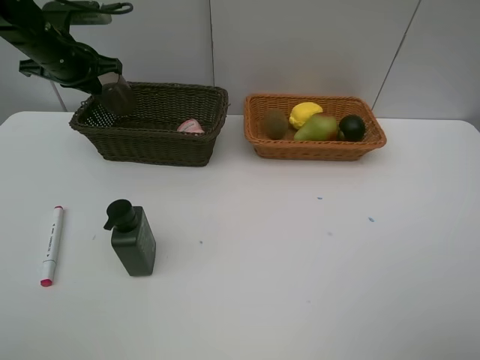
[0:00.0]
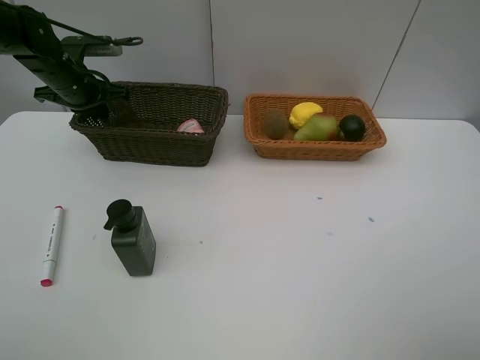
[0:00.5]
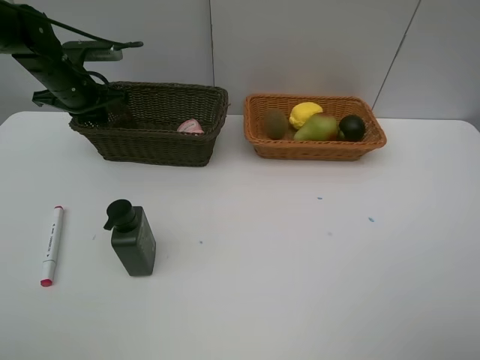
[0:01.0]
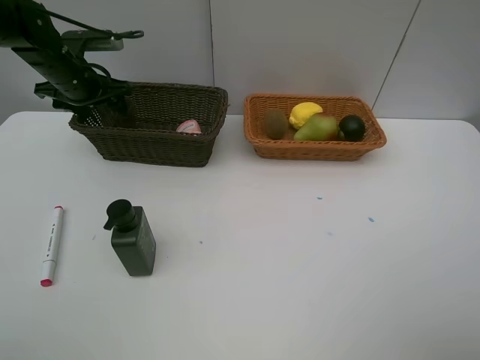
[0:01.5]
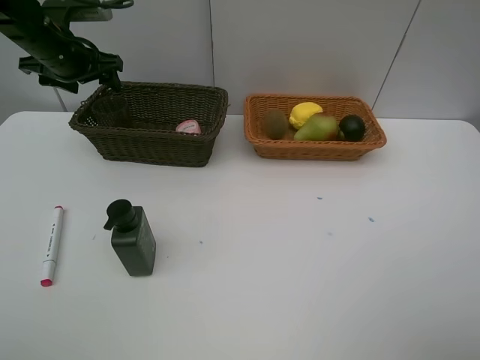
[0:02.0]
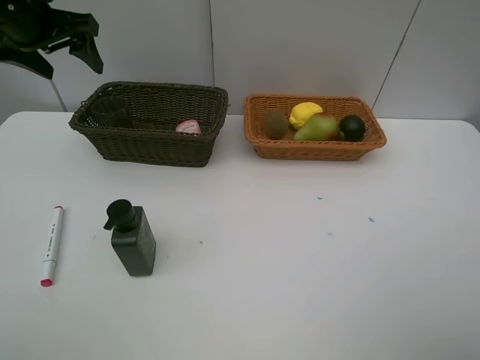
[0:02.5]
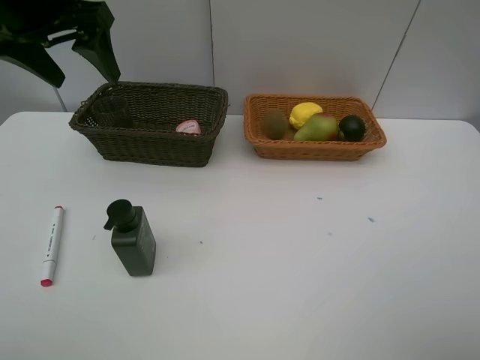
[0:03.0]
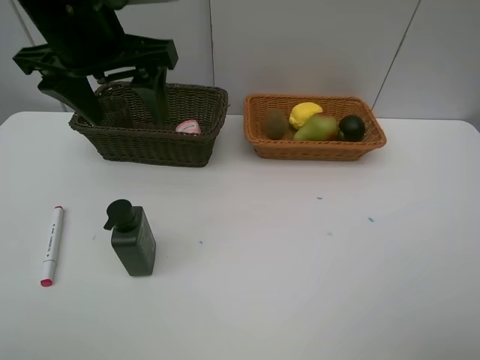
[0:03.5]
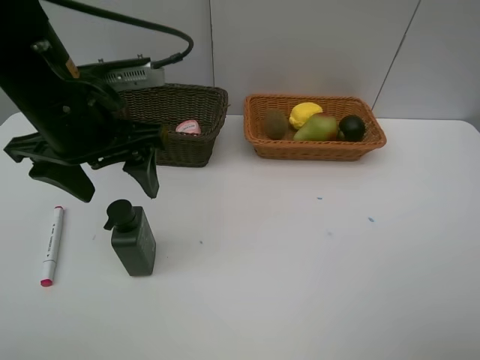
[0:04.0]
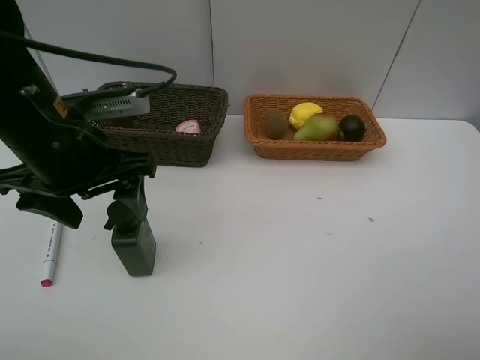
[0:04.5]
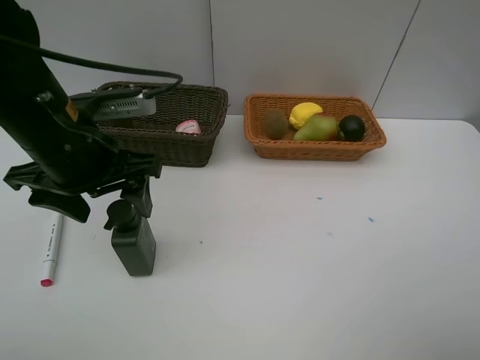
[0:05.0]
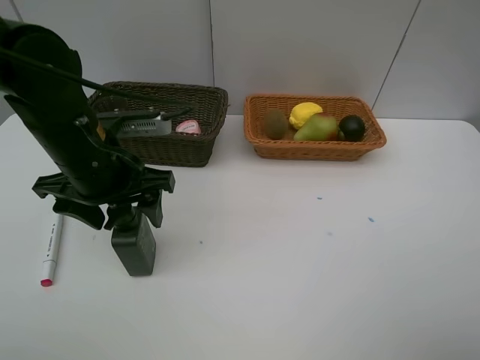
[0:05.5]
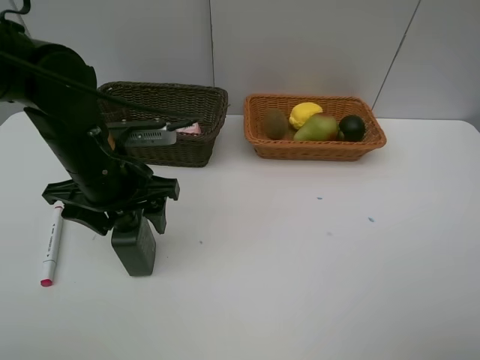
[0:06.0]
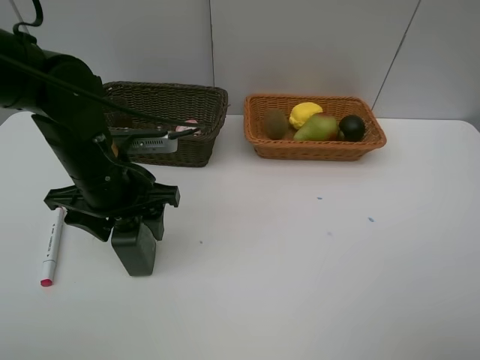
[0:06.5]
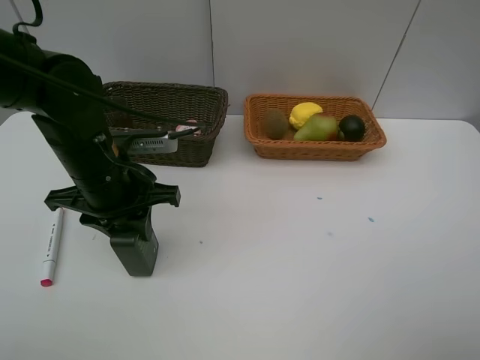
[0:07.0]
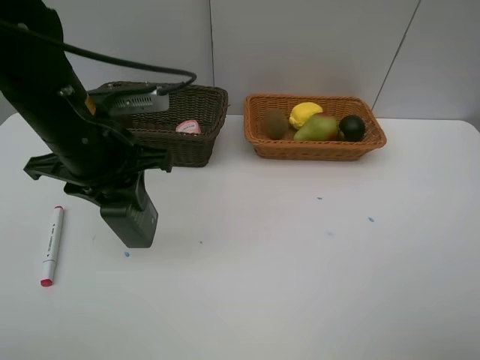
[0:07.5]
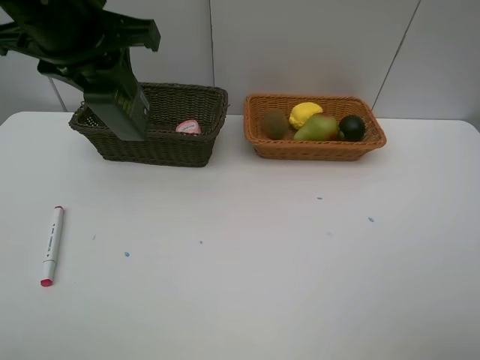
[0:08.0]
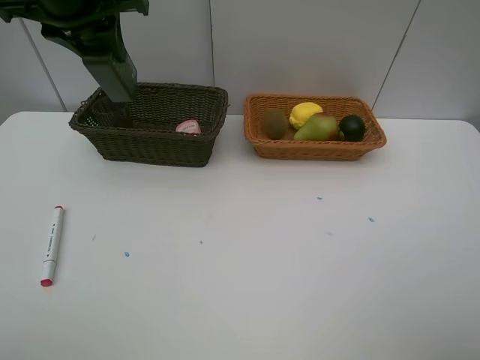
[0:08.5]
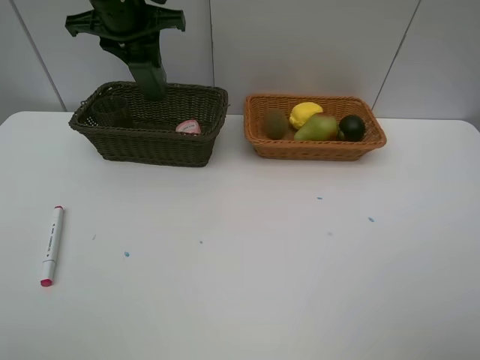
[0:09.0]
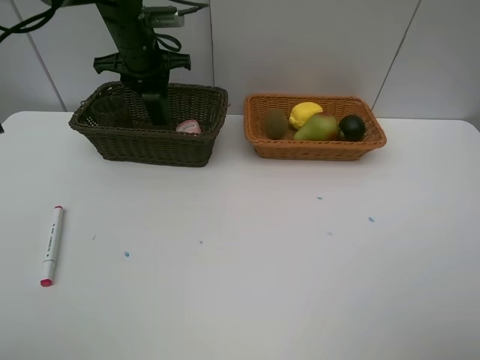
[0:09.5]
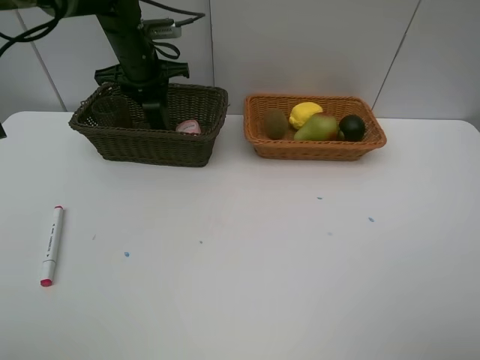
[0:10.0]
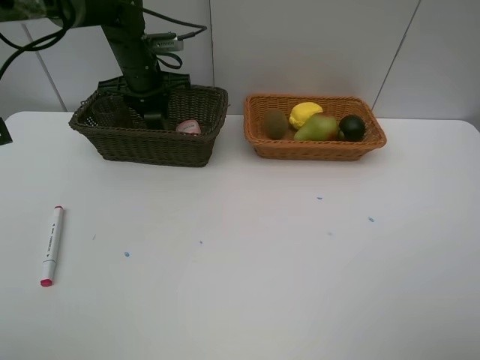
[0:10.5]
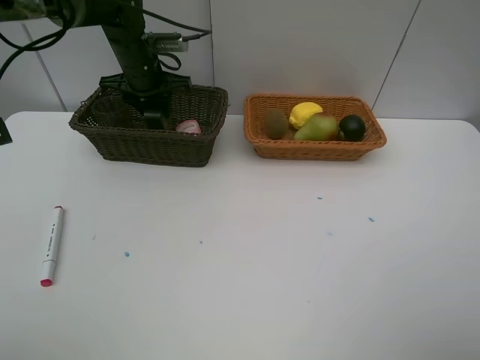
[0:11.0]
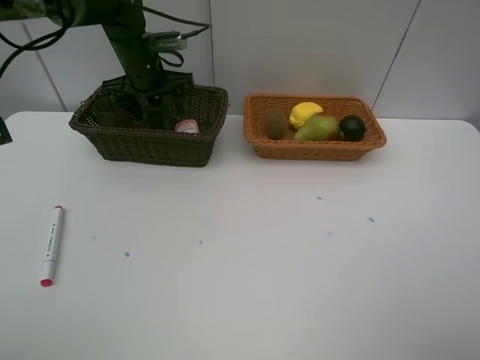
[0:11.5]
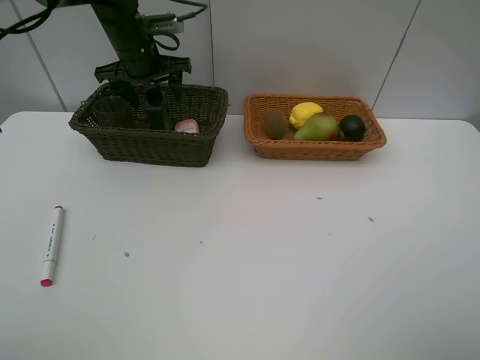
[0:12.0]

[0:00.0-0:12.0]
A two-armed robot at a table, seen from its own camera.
Task of the whole recording: Place multiple objects separately in different baskets.
Step, 0:02.0 to 0:07.0: Pick up the hard facial cleanser with left gripper.
0:00.0 to 0:02.0: The left gripper opens its fingers.
0:02.0 to 0:04.0: The left gripper heads backward and to the right, covering roughly 25 cm.
0:04.0 to 0:06.0: The left gripper travels downward by approximately 10 cm.
0:06.0 to 0:08.0: The left gripper goes about 15 cm upward, and closes its fingers.
0:08.0 to 0:10.0: The left gripper moves forward and downward, roughly 25 cm.
0:10.0 to 0:12.0: The left gripper opens up.

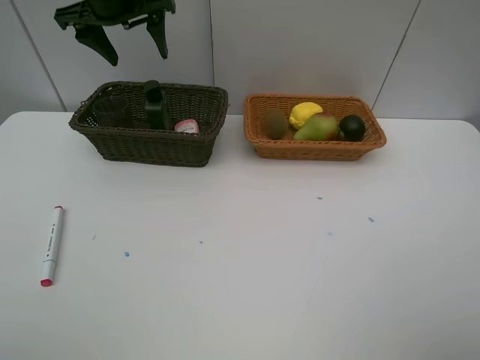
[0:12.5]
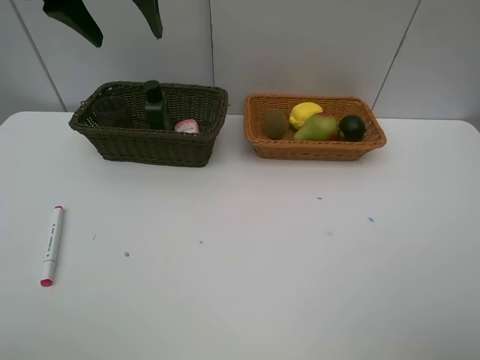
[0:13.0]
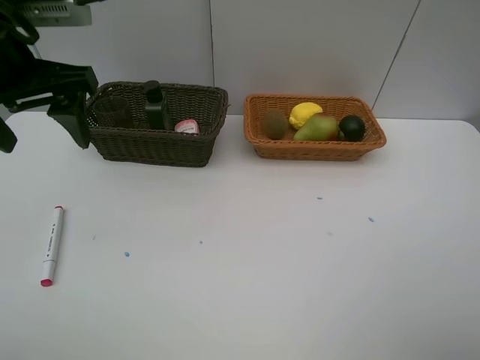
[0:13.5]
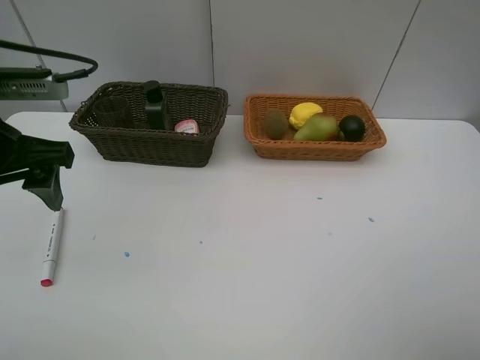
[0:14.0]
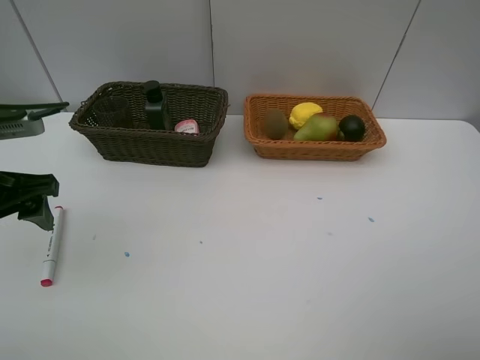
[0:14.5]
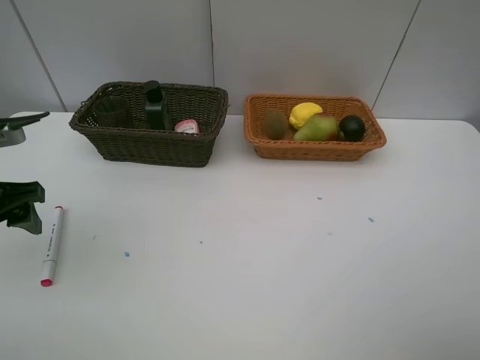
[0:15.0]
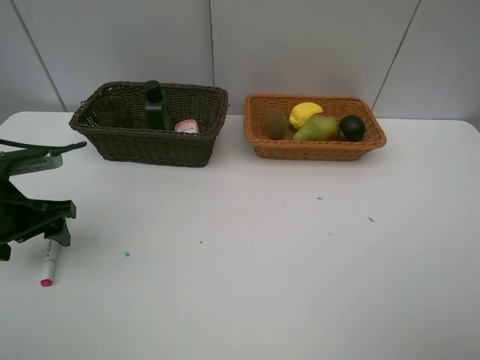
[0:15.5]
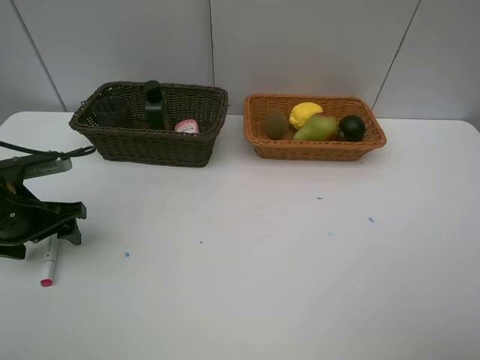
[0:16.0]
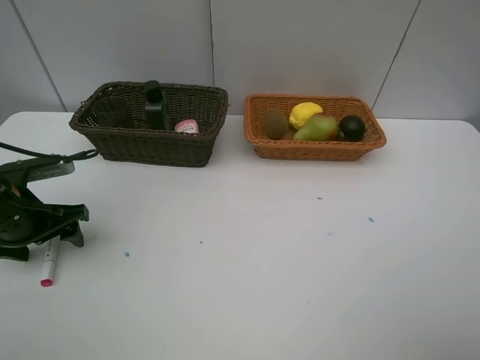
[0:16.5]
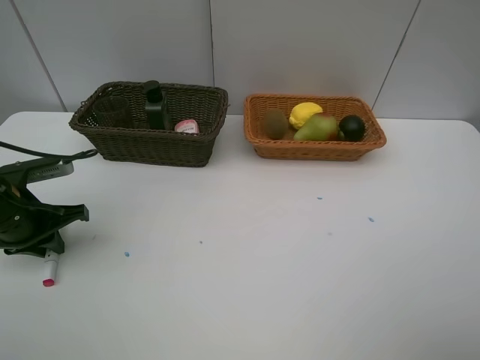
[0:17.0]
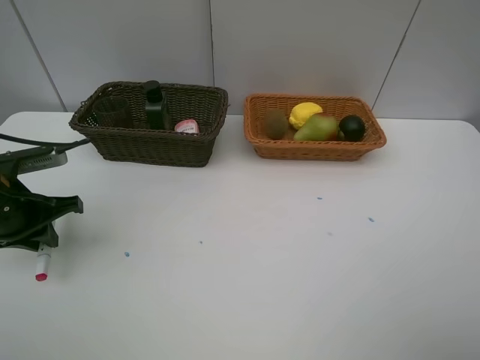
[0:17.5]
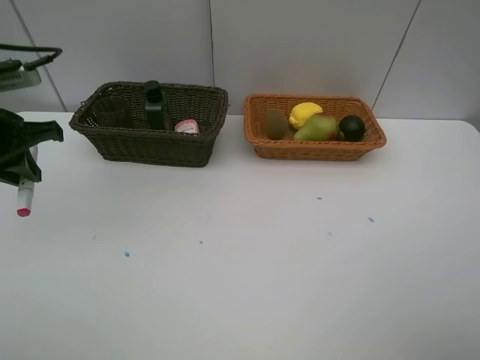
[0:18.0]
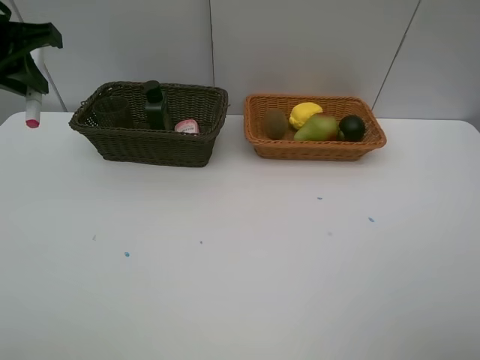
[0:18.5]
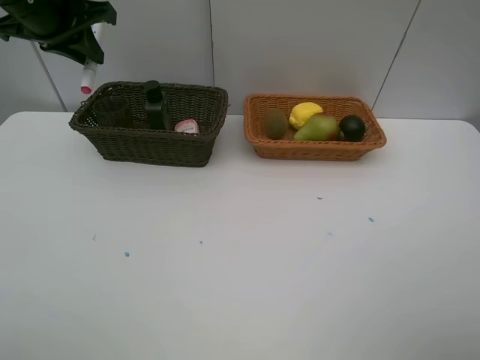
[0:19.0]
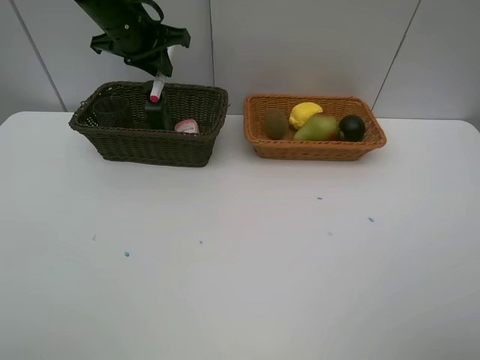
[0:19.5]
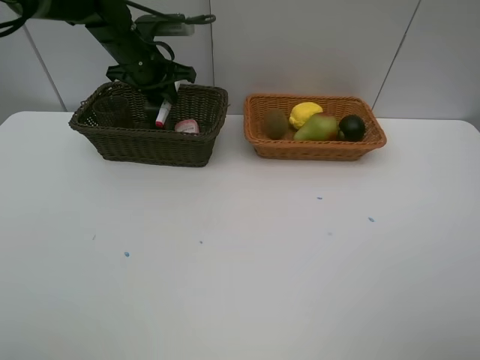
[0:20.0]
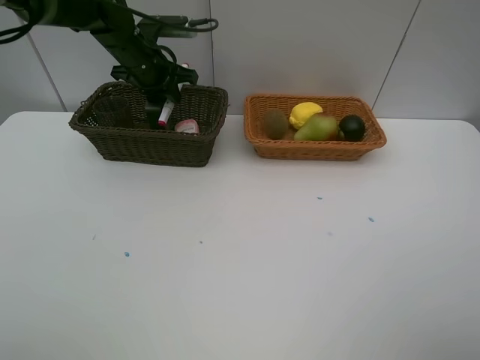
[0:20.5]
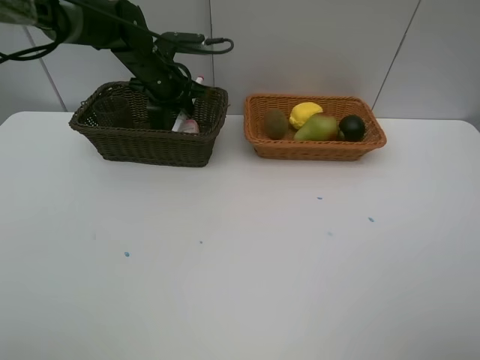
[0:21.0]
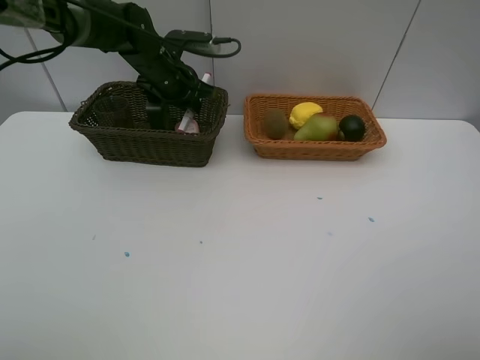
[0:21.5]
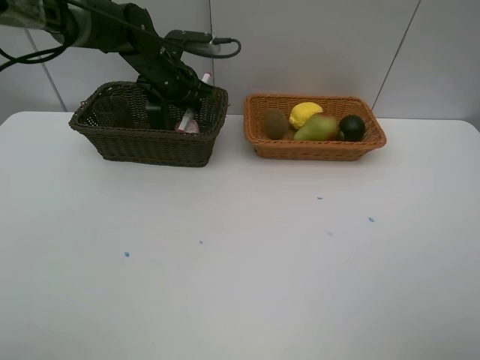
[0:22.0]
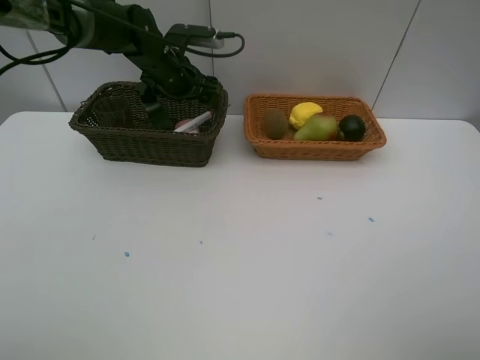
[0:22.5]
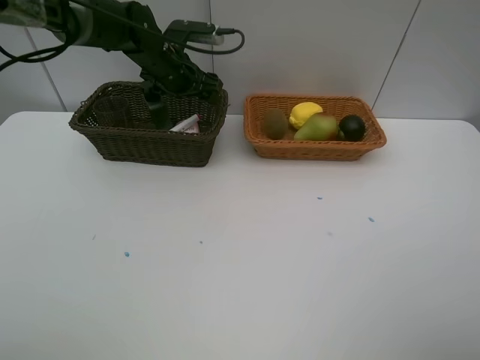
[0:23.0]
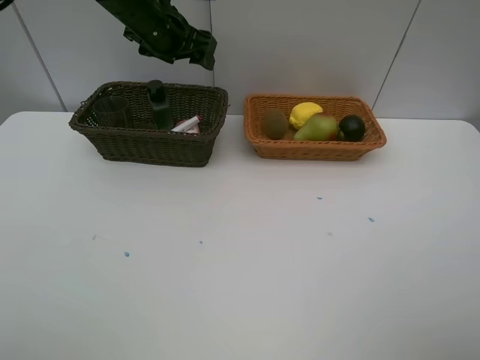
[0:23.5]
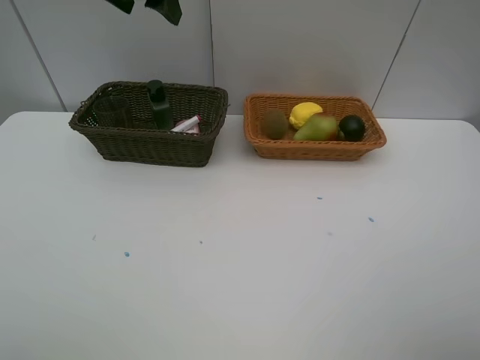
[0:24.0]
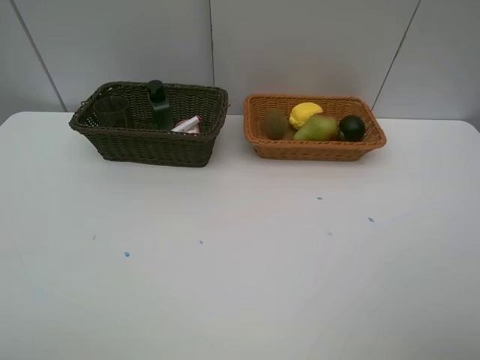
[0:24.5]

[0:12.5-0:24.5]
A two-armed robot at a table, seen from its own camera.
Task of the whole recording: Place multiple objects separately in different baskets.
Step, 0:12.5 to 0:17.0: Pick up the red marker with left gripper.
Step, 0:17.5 to 0:22.5: Place the red marker in the dark basket with left gripper.
0:12.5 to 0:14.5: The left gripper shifts roughly 30 cm backward, downward and to the left.
0:14.5 to 0:16.5: The left gripper goes roughly 10 cm downward.
0:16.5 to 0:18.5: The left gripper goes some 20 cm upward and forward, and closes up.
0:18.5 to 0:20.5: The left gripper shifts about 20 cm forward, to the right and downward.
0:20.5 to 0:22.5: The left gripper opens.
0:22.5 to 0:24.5: The left gripper travels upward, backward and to the left by about 35 cm.

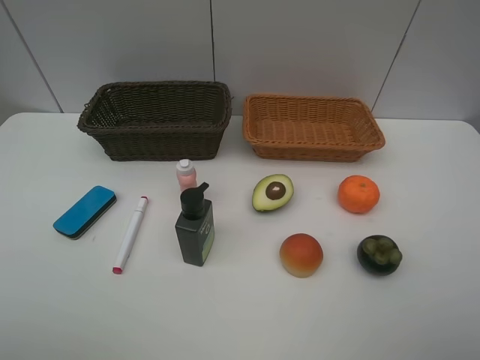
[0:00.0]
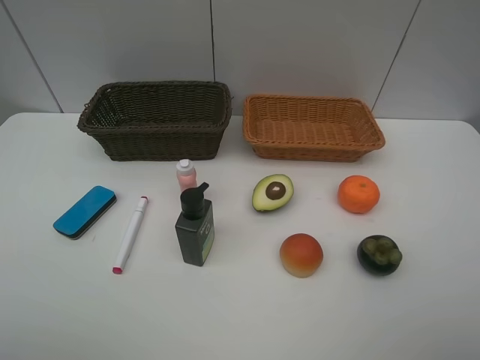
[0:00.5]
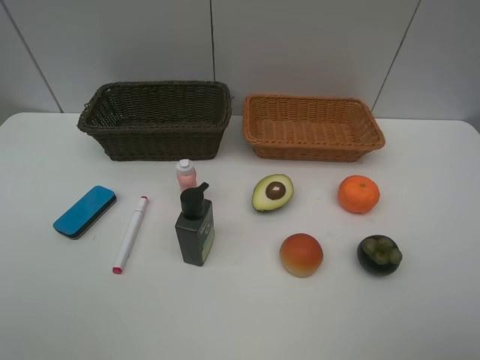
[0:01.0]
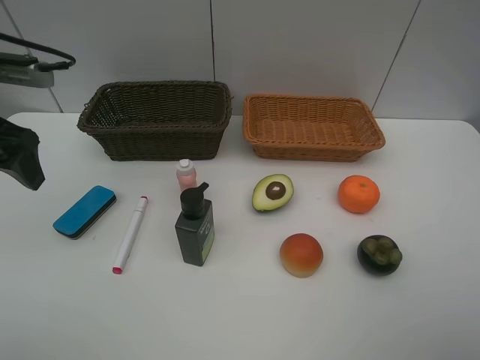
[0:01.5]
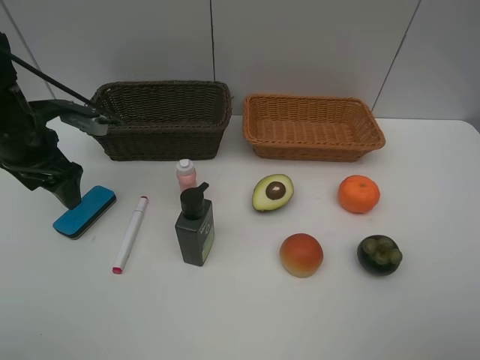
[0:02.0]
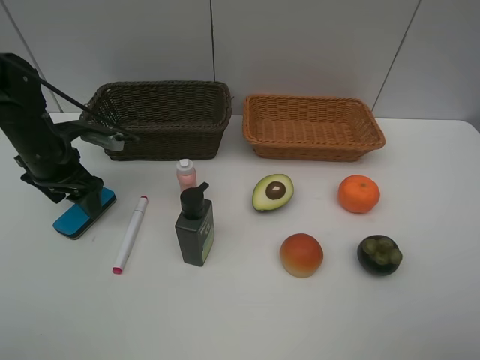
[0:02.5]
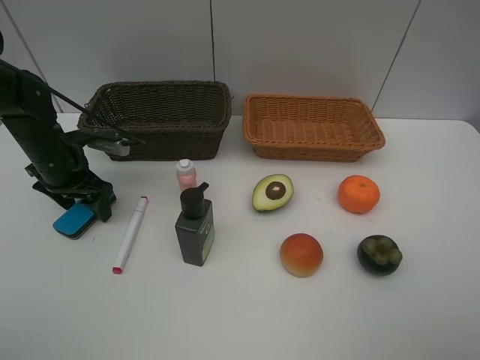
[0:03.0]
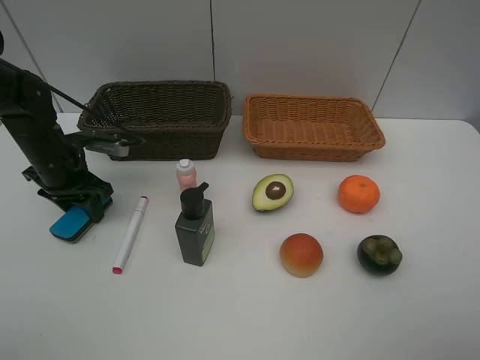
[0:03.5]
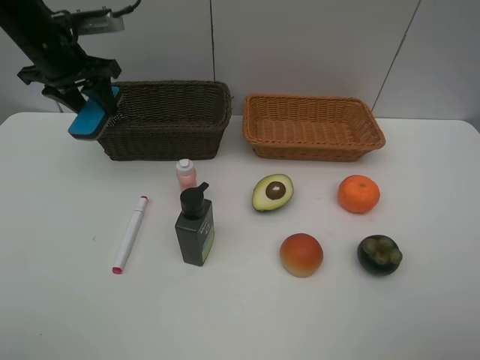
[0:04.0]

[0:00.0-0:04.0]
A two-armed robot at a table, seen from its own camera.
Task of the whole recording: Place multiple objects separately in different baskets.
Step, 0:00.0 to 0:03.5: Pick up blackboard eraser with left gripper.
0:00.0 to 0:02.0: The left gripper goes about 35 cm forward.
0:02.0 to 0:04.0: The left gripper goes roughly 15 cm forward and upward, and closes.
